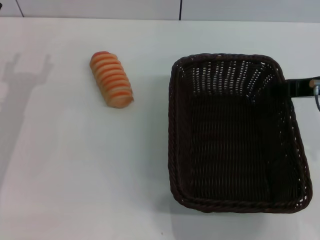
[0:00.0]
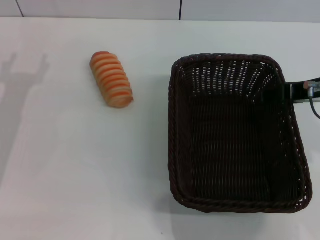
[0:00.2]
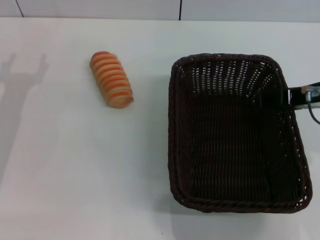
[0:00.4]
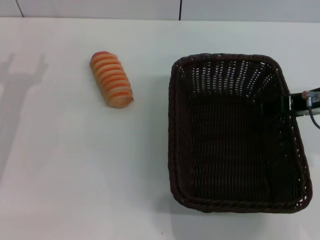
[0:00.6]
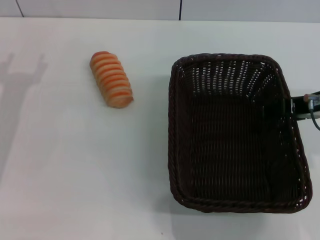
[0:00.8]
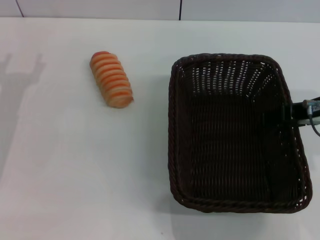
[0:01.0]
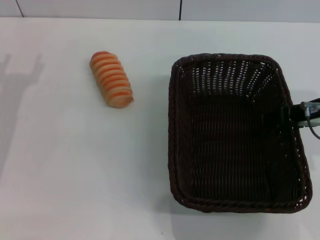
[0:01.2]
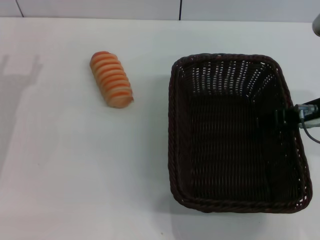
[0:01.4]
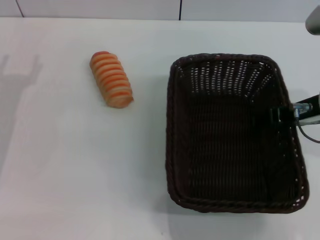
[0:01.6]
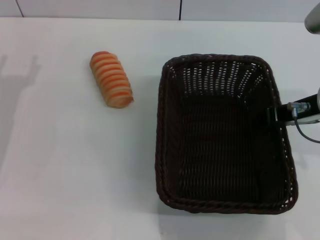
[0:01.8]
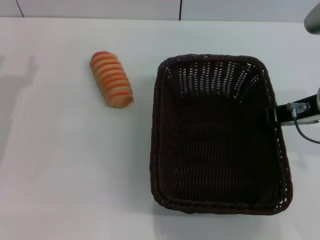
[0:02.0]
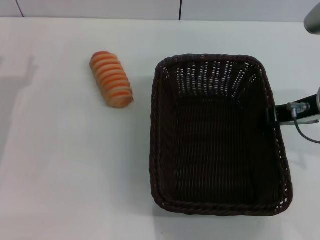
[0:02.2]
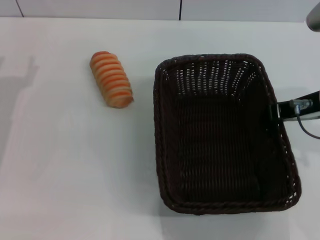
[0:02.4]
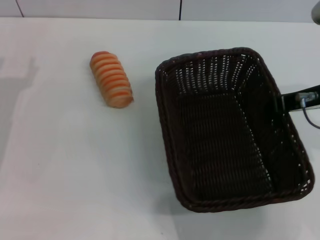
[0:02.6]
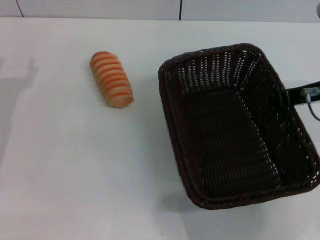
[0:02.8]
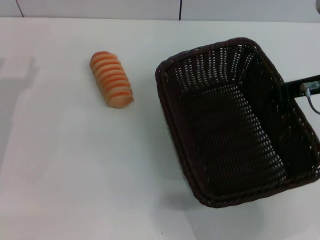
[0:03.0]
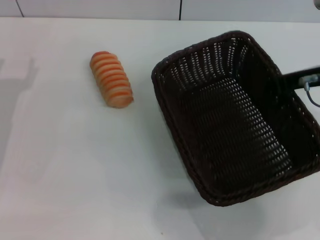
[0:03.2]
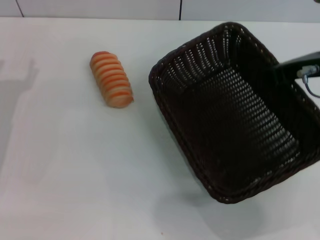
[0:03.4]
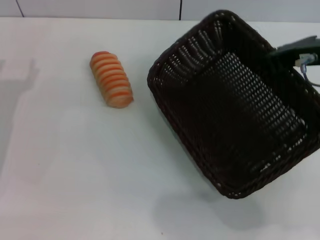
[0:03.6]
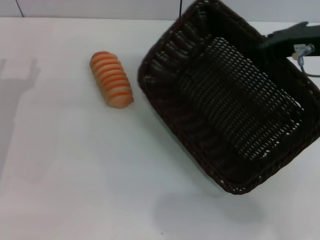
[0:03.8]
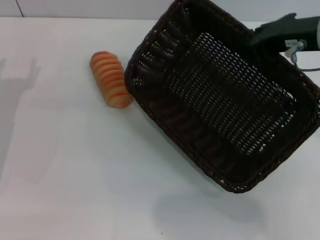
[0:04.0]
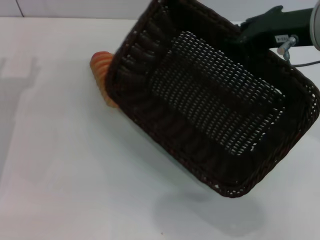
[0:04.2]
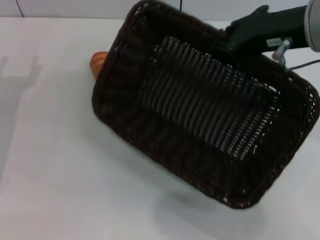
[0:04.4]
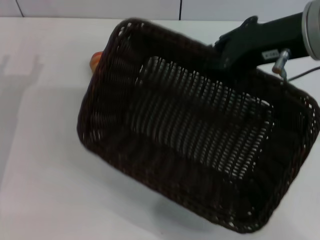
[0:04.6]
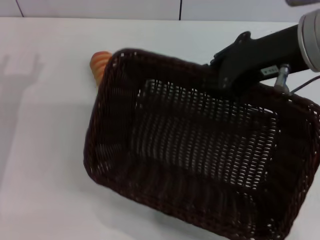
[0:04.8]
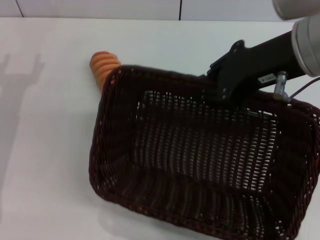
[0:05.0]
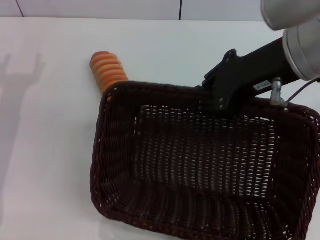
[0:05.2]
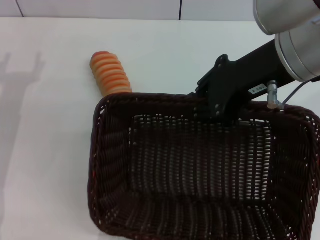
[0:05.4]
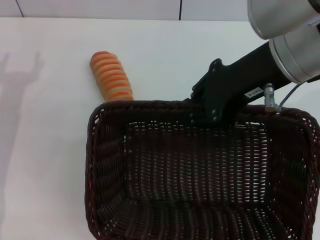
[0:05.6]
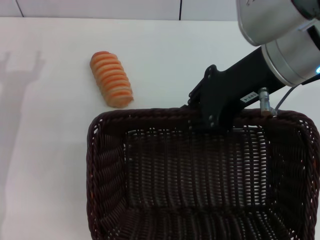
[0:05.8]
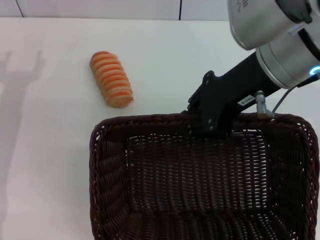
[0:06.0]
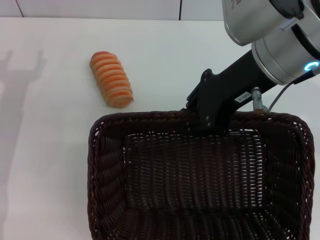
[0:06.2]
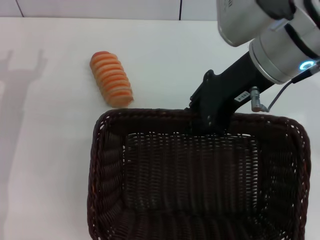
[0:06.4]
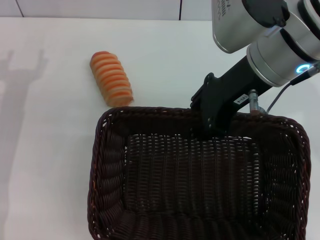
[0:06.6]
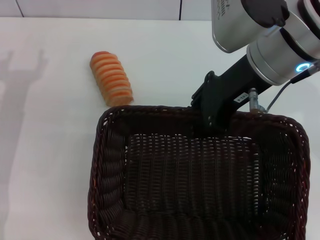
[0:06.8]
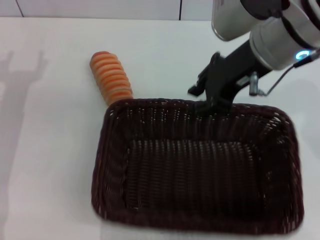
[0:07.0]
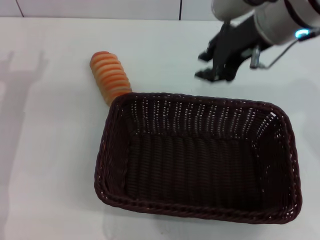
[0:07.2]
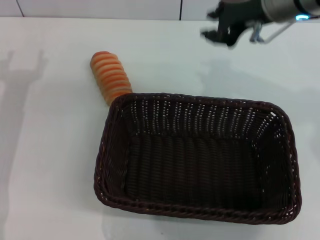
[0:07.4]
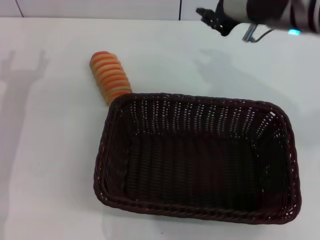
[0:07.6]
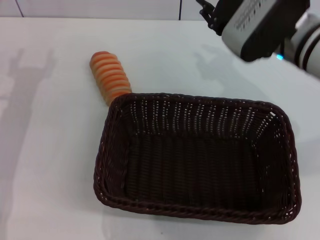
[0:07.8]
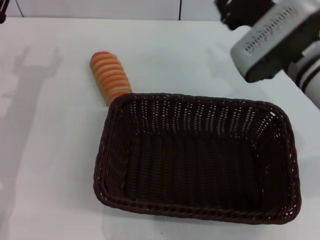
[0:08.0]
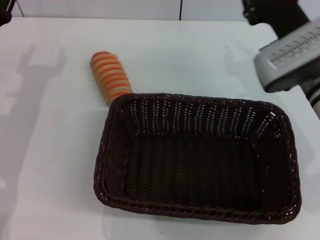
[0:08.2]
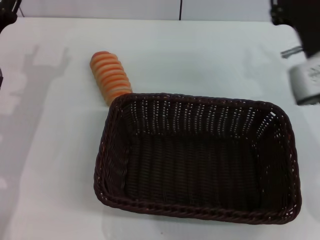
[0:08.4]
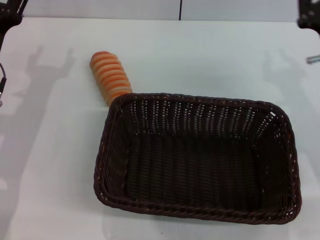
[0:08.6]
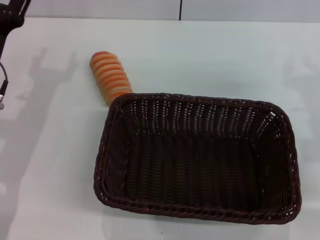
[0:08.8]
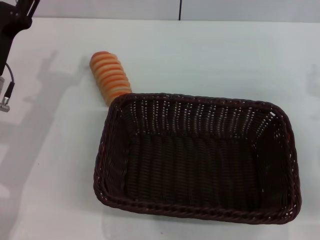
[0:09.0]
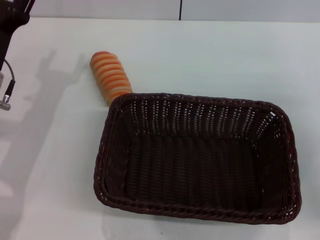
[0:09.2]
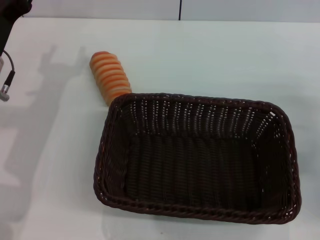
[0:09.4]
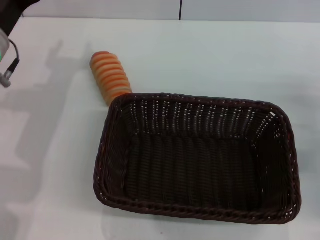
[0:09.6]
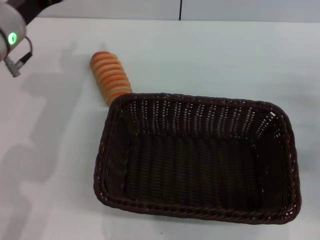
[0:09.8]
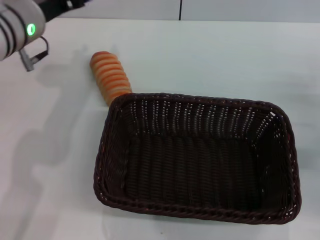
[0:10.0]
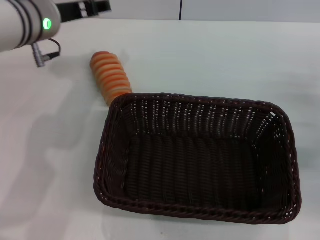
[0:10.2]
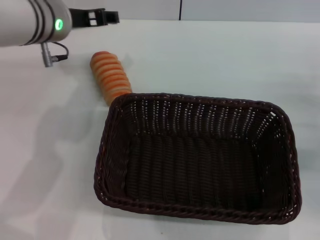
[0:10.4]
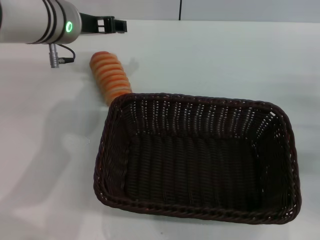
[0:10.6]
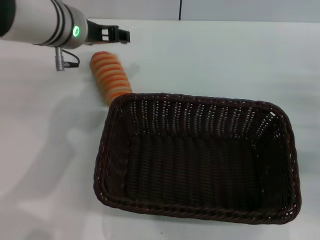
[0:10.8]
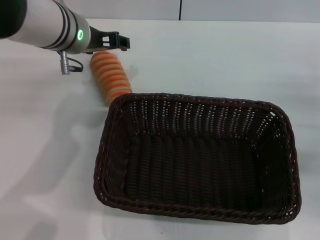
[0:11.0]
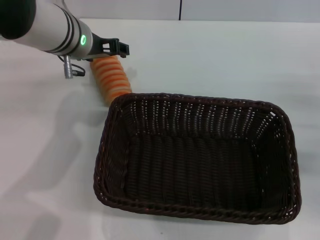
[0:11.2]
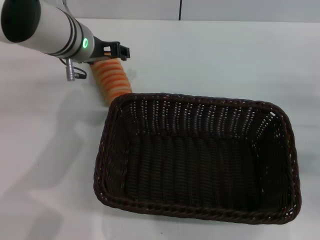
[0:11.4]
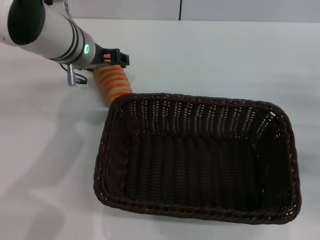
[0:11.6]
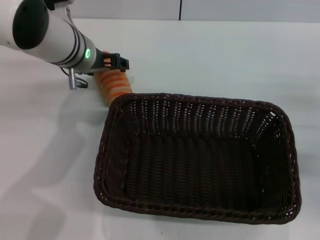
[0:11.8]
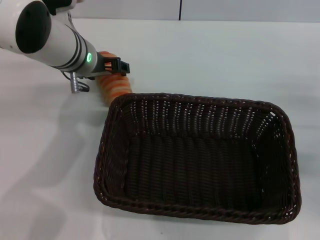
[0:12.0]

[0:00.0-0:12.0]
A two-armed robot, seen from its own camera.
Step, 0:00.0 to 0:04.0: Pick up the dark basket with the right gripper.
Step, 0:04.2 to 0:07.0: Place the dark basket in the center of view with the right gripper.
0:00.0 to 0:01.6: The grippers move only a little.
0:01.6 to 0:03.0: The right gripper closes its fingers.
0:03.0 to 0:04.4: The right gripper travels upward and to the left by roughly 10 cm.
0:06.0 to 0:07.6: The right gripper travels forward by about 5 cm.
0:07.6 to 0:09.0: The right gripper heads to the right, downward and backward, covering about 20 cm.
0:09.0 to 0:10.4: The right gripper ends up about 5 cm from where it was, while the left gripper shifts about 15 cm upward, to the right and forward.
0:10.4 to 0:12.0: The left gripper is displaced downward by roughly 5 cm.

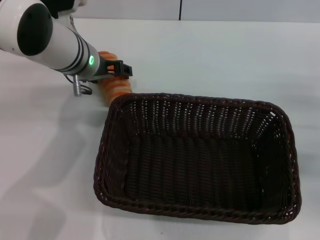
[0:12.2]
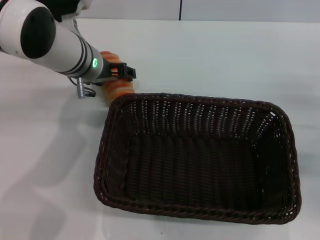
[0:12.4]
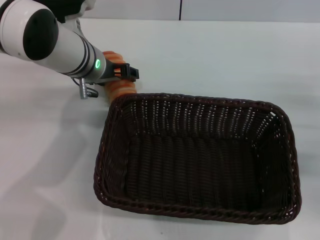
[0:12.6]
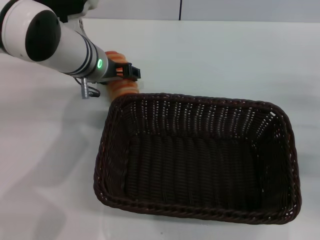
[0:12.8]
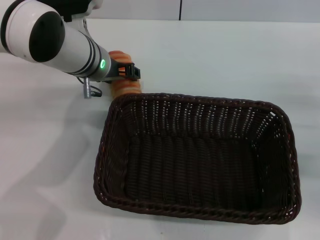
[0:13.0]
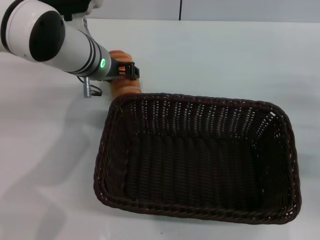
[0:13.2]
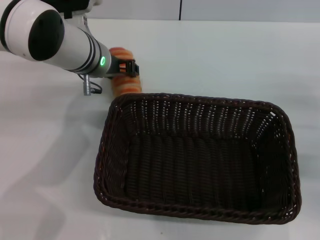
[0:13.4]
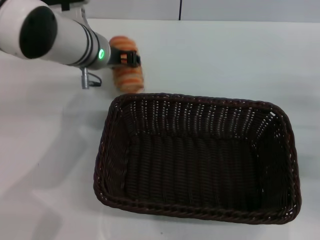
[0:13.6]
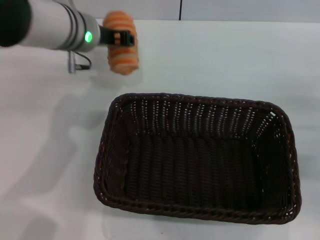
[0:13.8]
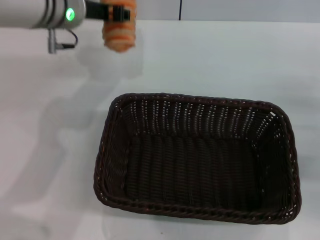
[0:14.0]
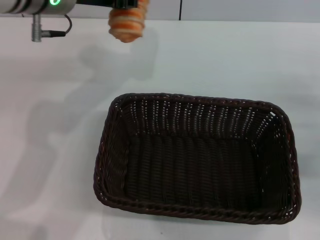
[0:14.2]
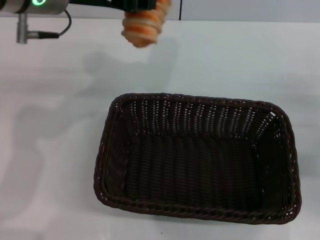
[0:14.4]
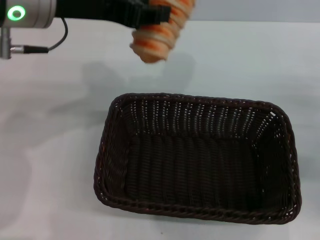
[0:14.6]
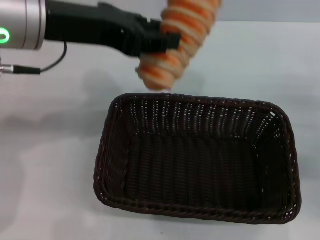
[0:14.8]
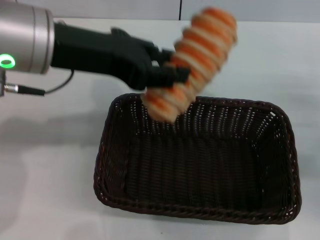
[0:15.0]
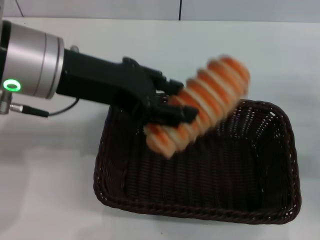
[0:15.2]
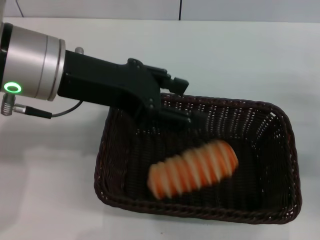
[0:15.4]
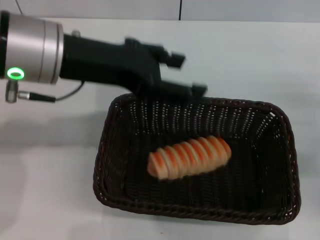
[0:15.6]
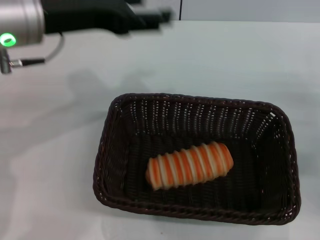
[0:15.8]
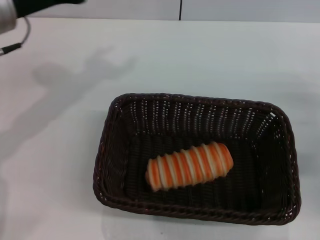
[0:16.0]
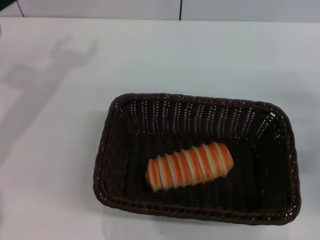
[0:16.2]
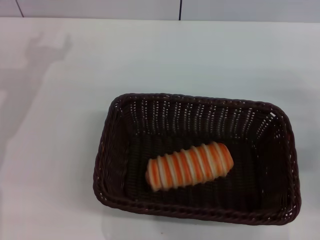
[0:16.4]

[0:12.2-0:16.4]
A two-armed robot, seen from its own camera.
Step, 0:14.0 to 0:15.4: Place the long bread into the dark basket with the left gripper.
0:12.2 to 0:13.6: The left gripper closes its fingers.
0:13.6 to 0:15.0: The left gripper goes some 15 cm upward and backward, and closes.
0:15.0 to 0:16.4: The left gripper shifts approximately 20 cm to the left, downward and forward, and opens up.
